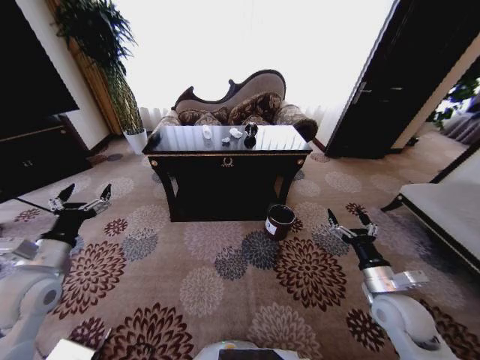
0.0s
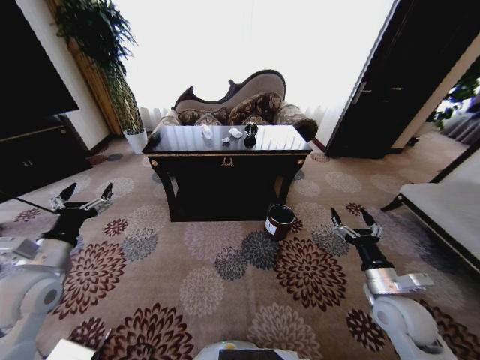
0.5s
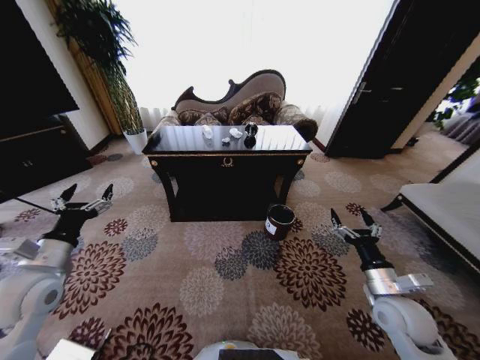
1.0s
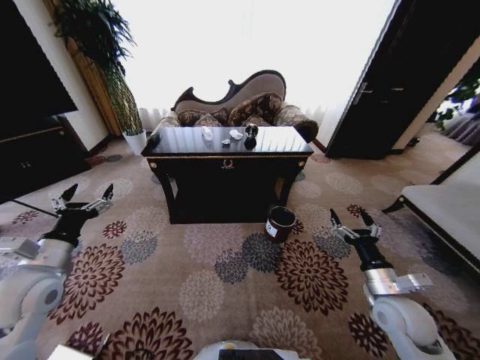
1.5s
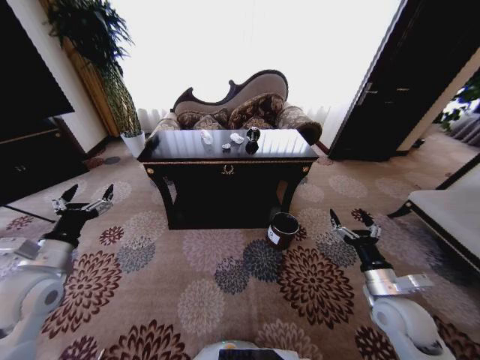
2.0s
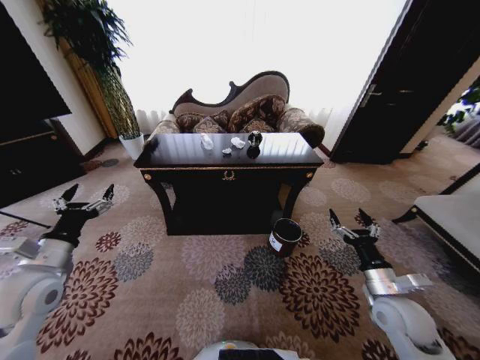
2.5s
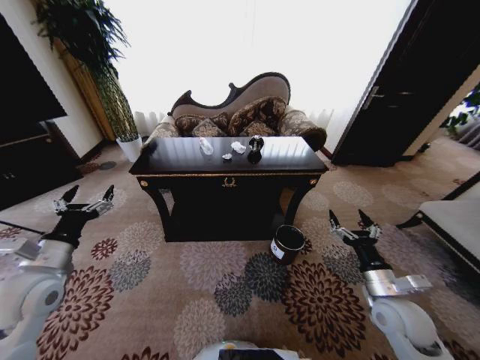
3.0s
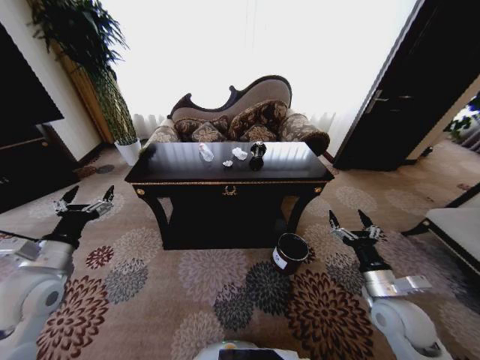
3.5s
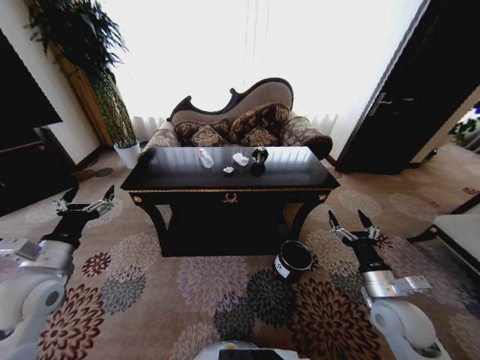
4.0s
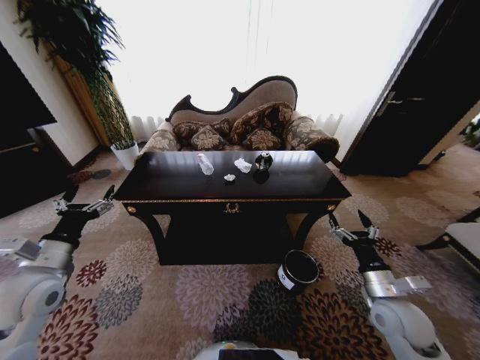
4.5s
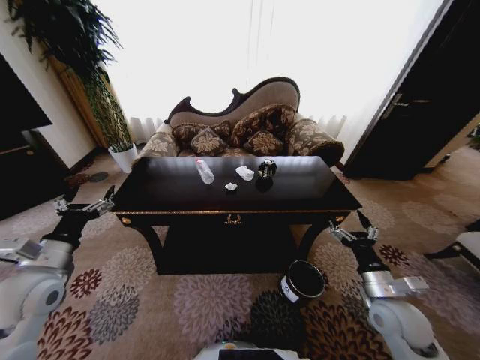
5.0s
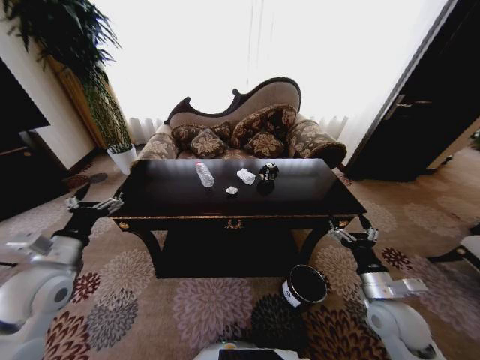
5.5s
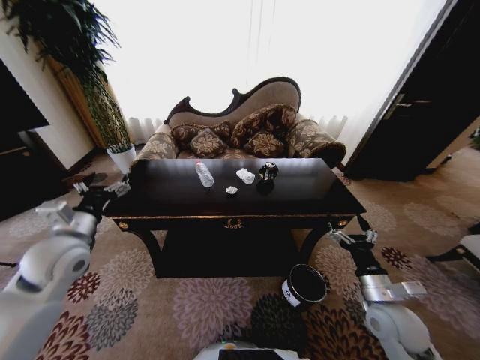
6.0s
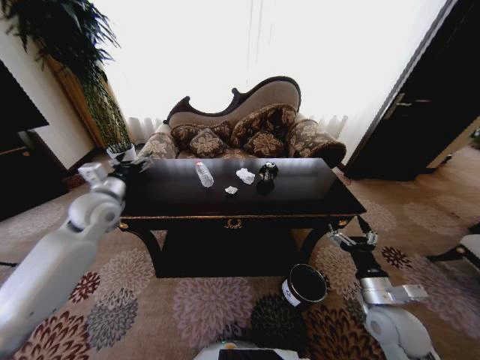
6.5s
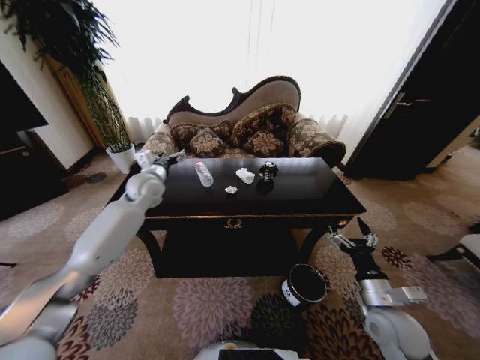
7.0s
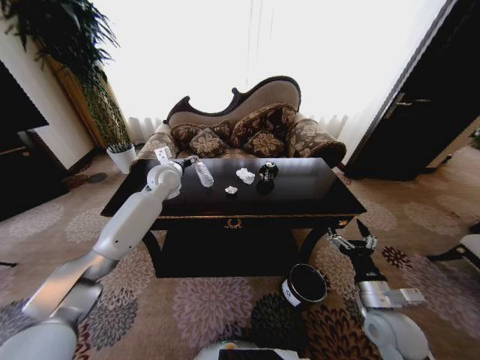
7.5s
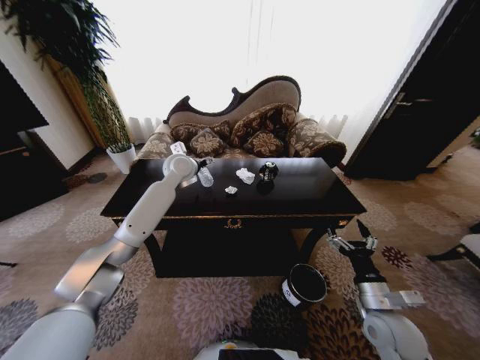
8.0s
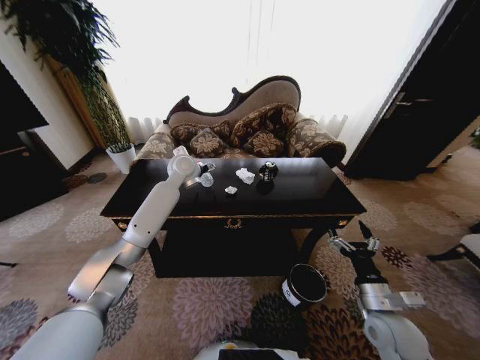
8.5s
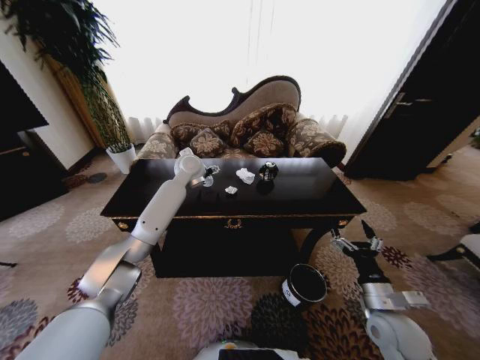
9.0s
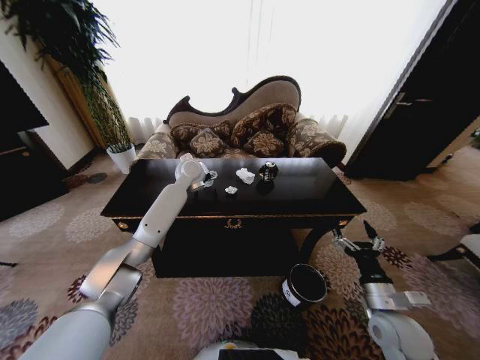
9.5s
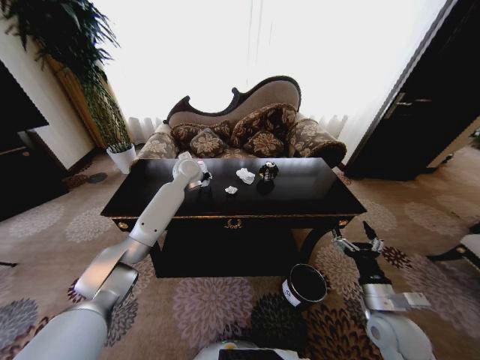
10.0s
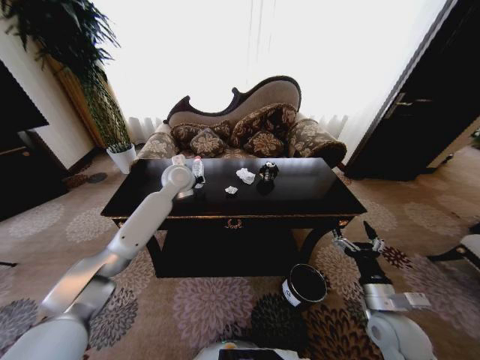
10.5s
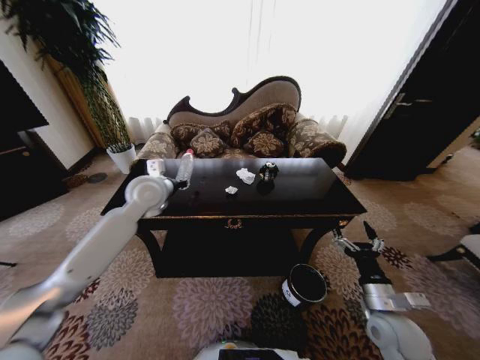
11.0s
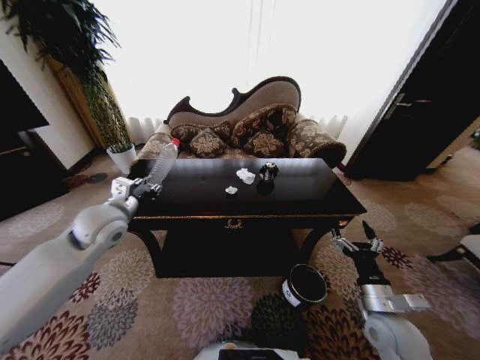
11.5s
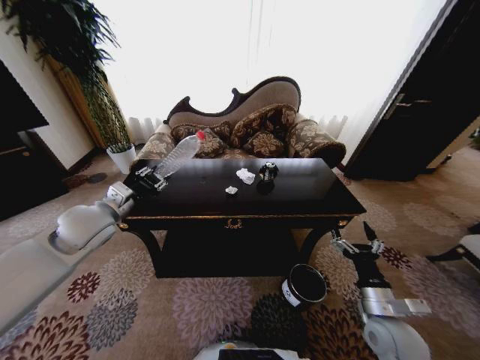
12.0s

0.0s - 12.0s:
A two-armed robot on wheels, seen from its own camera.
Task of the whole recording: Move to the front of the table and place the trash on the table into the trash bin.
4.0s - 6.0s: The left gripper moves forward, some 5 cm.
6.0s - 8.0s: The left gripper travels forward and to the right by approximately 35 cm.
8.0s - 10.0s: The left gripper closes.
10.0s - 12.0s: The left gripper travels backward and to the left by roughly 30 cm.

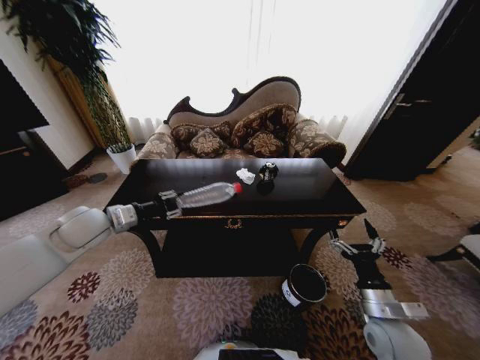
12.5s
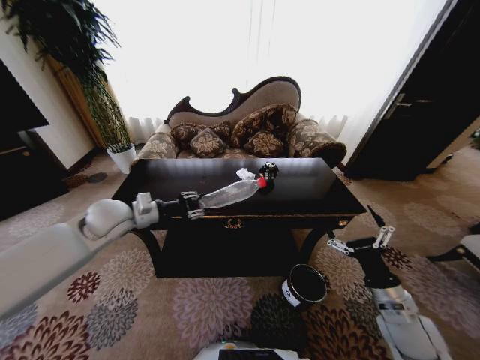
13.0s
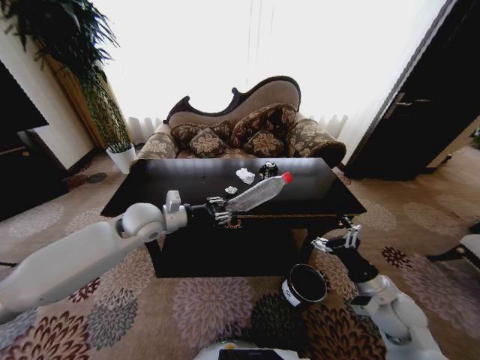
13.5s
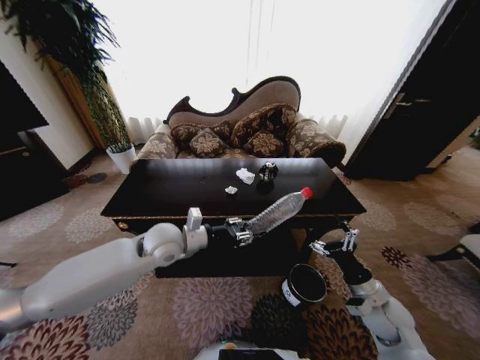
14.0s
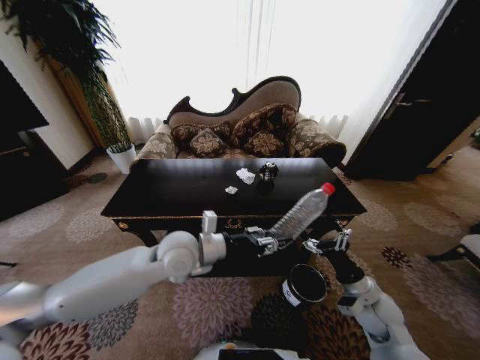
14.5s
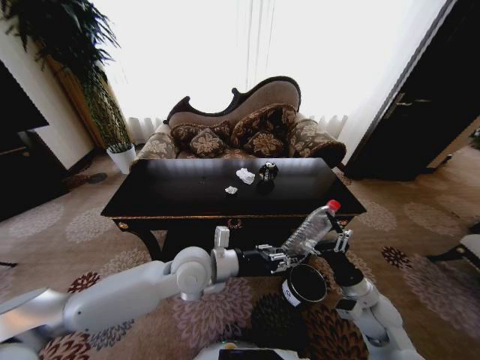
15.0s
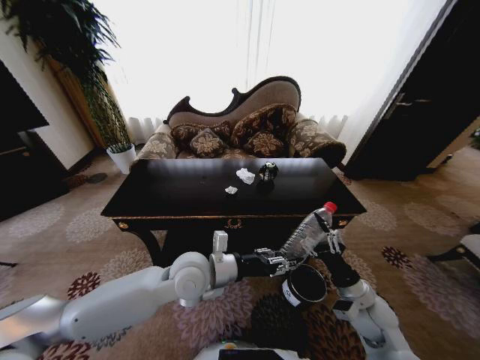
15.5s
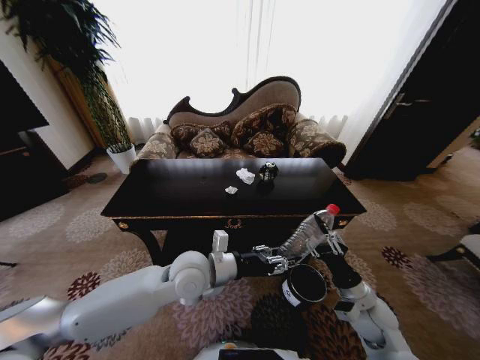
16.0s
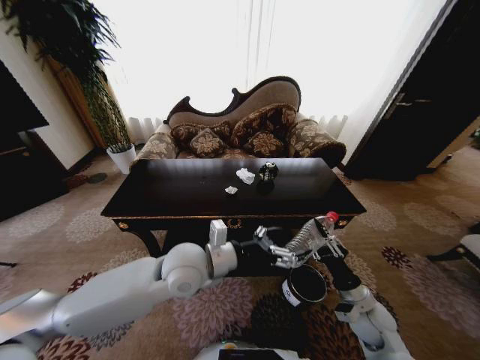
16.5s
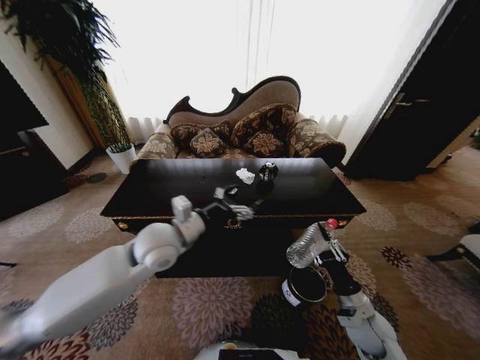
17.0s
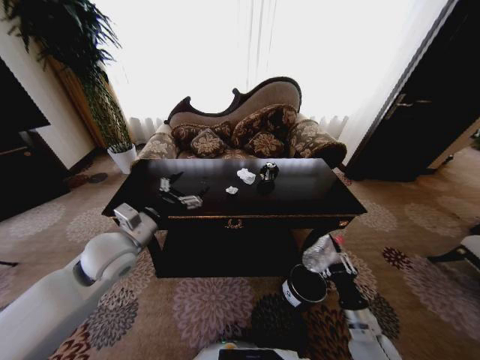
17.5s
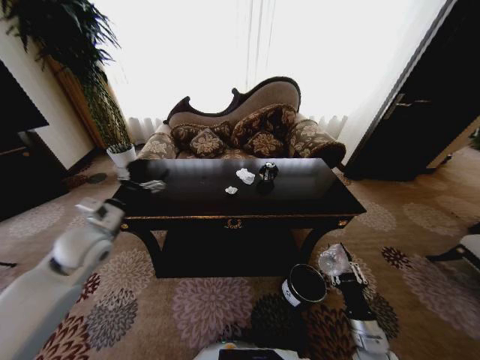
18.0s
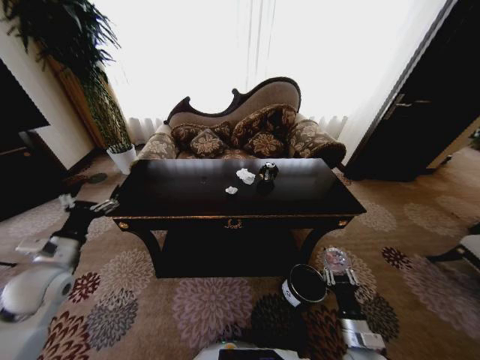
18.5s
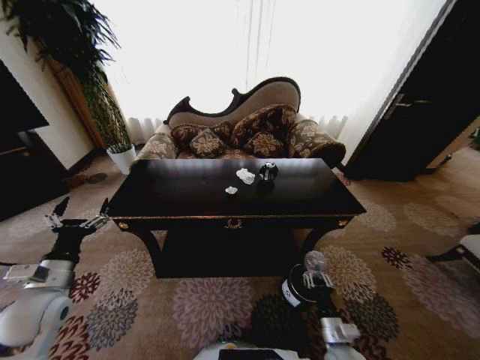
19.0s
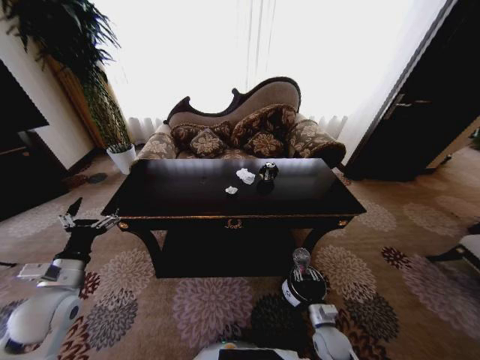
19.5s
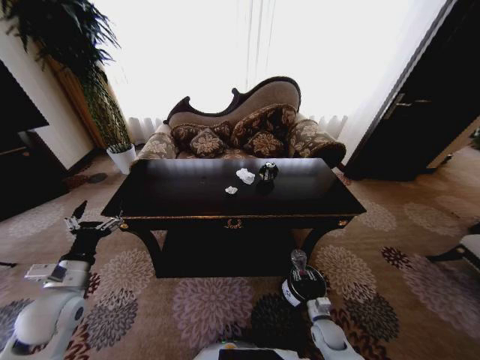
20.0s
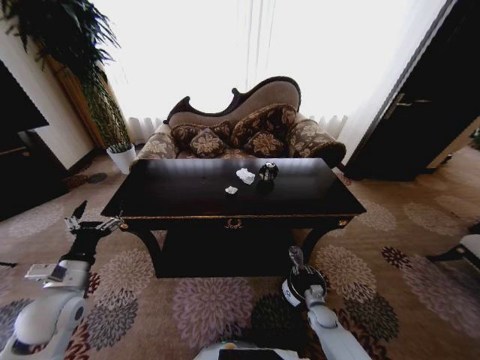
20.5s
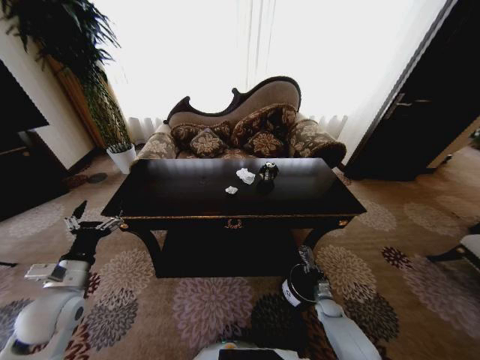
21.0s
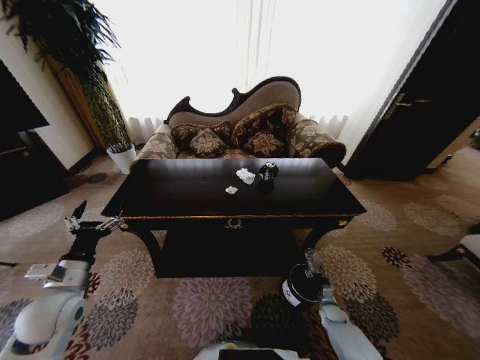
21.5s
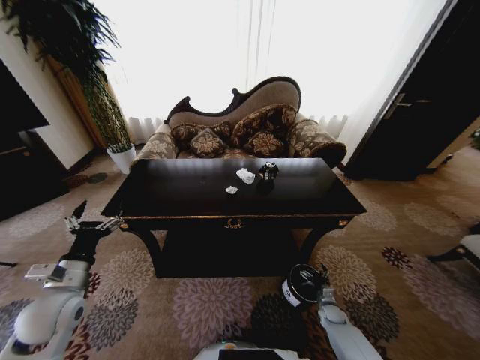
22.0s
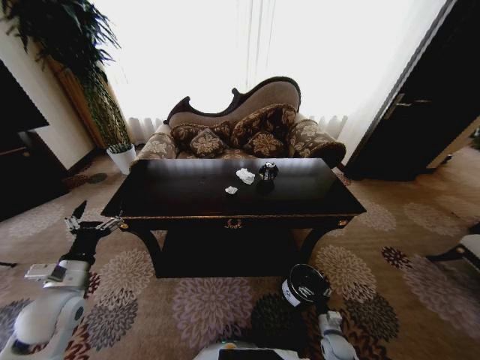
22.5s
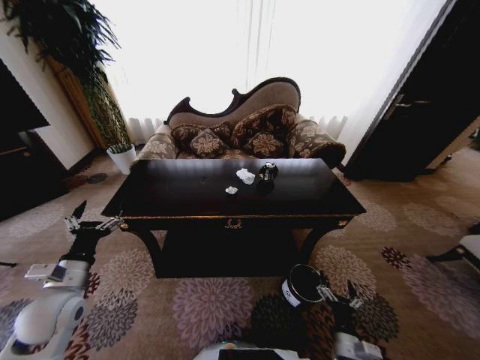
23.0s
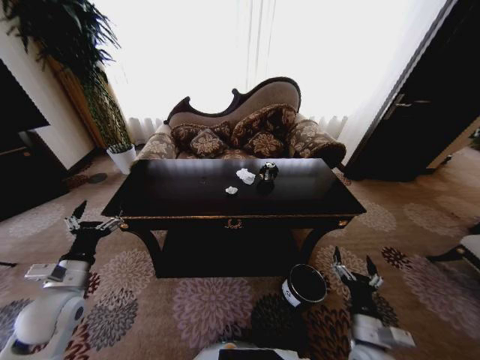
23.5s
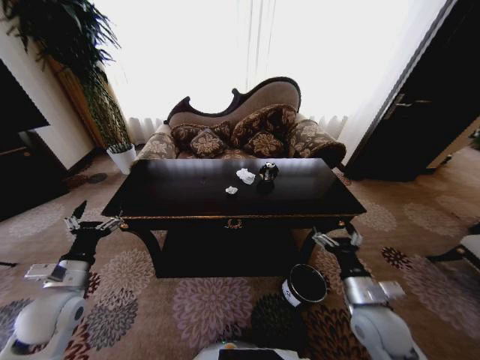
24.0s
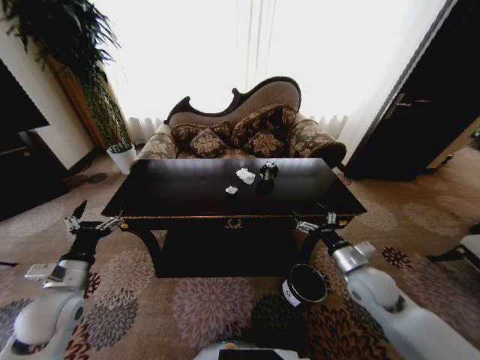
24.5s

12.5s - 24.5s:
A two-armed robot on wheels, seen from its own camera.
Task of the whole recording: Move to the front of the table and place the trash on the table into the trash bin.
12.5s - 14.5s: The left gripper moves to the right, about 25 cm. The right gripper goes approximately 5 cm forward.
14.5s - 16.5s: The left gripper opens up; the right gripper closes its fingers.
16.5s - 18.5s: The left gripper moves to the left, some 30 cm, while the right gripper heads backward and downward, covering about 10 cm.
18.5s - 20.5s: The left gripper moves approximately 5 cm. Meanwhile the right gripper goes roughly 20 cm downward and forward.
20.5s - 22.5s: The right gripper is displaced backward by some 10 cm, and opens.
22.5s - 24.5s: The right gripper shifts approximately 30 cm upward.

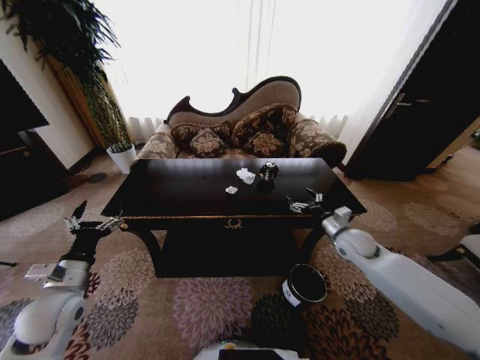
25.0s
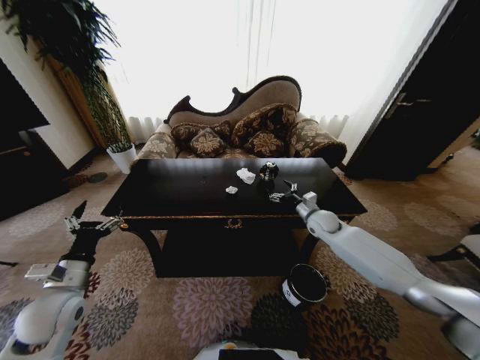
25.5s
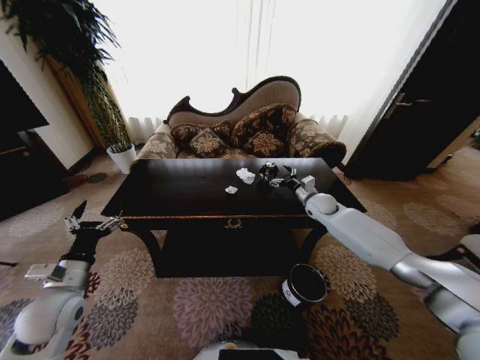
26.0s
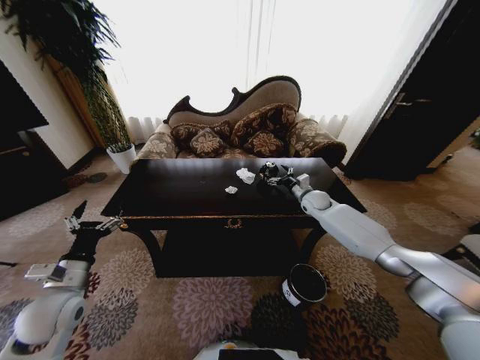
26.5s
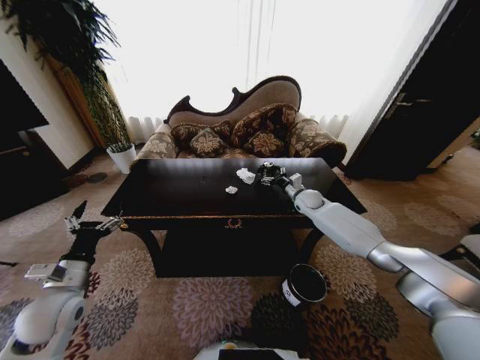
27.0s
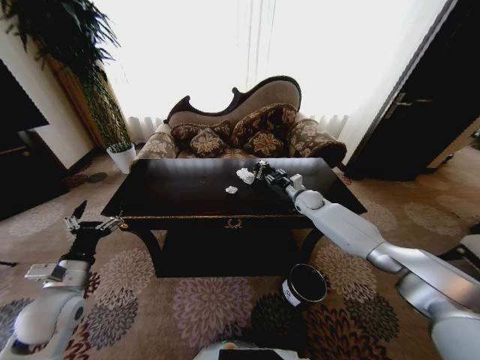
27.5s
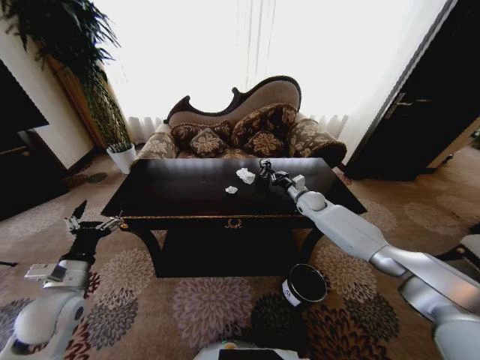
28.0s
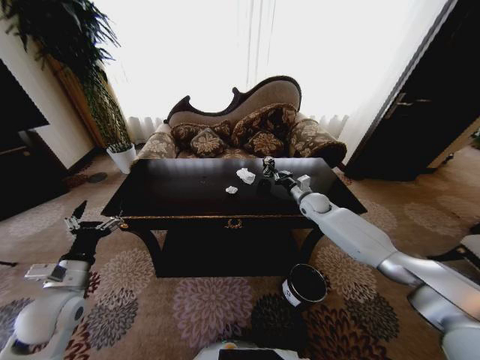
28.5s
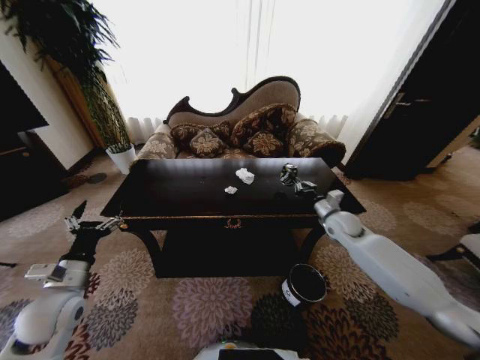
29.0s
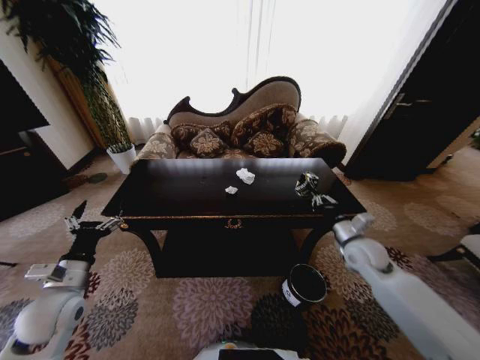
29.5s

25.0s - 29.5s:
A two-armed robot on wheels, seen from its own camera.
Task of the whole recording: Move to the front of the table and place the trash on the table into the trash bin.
25.0s - 27.0s: The right gripper travels forward by some 20 cm.
27.0s - 29.5s: The right gripper goes some 25 cm backward, and closes up.
